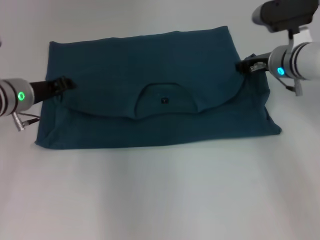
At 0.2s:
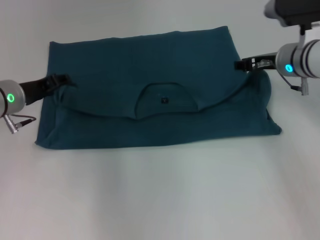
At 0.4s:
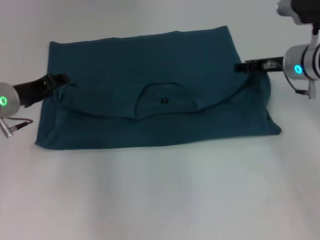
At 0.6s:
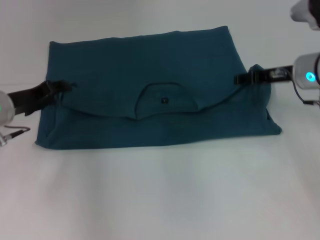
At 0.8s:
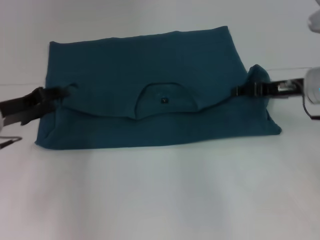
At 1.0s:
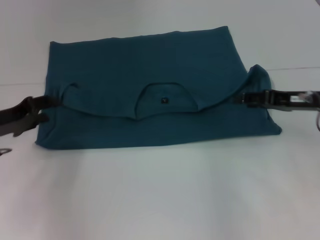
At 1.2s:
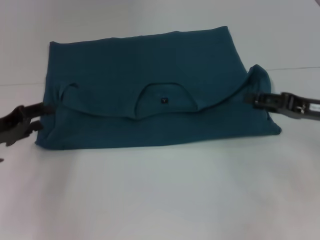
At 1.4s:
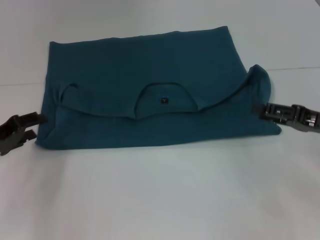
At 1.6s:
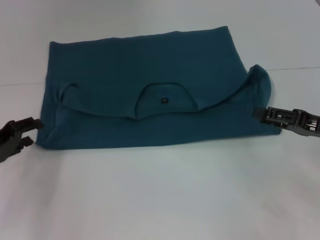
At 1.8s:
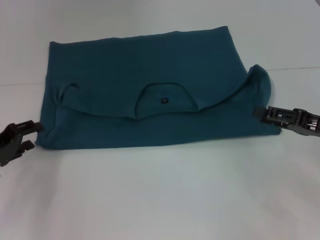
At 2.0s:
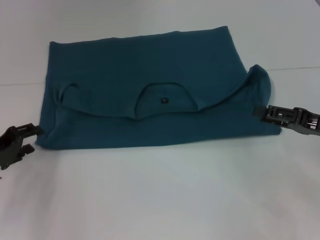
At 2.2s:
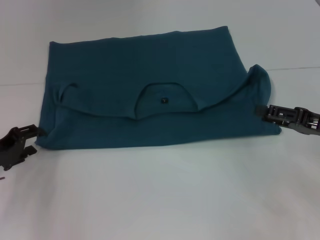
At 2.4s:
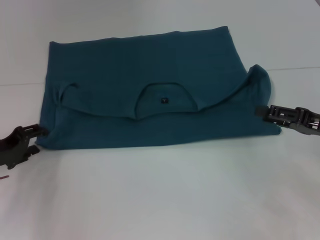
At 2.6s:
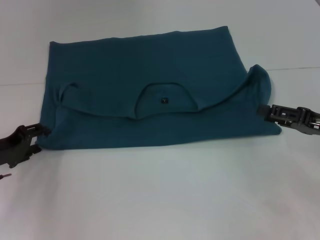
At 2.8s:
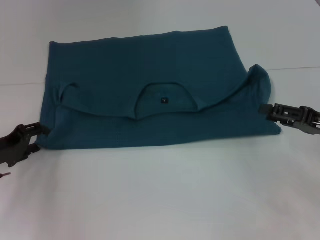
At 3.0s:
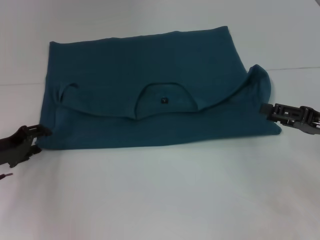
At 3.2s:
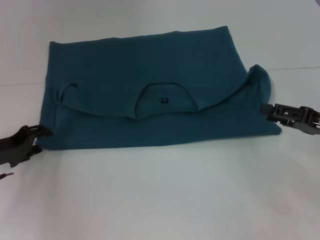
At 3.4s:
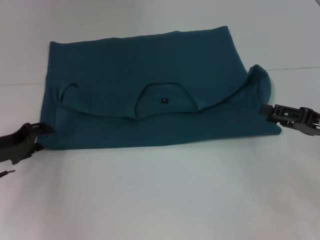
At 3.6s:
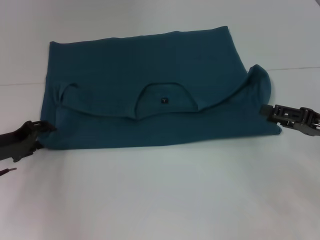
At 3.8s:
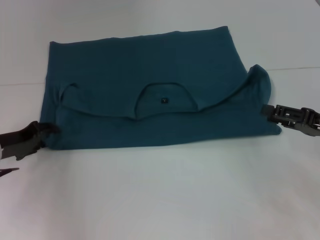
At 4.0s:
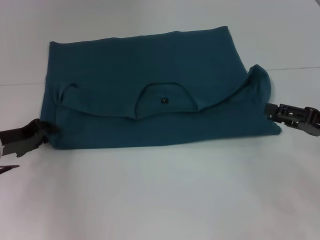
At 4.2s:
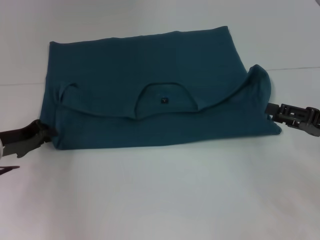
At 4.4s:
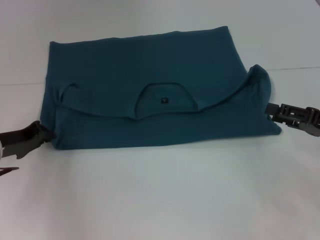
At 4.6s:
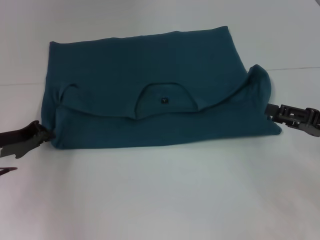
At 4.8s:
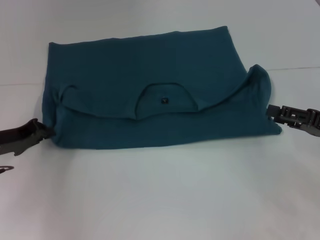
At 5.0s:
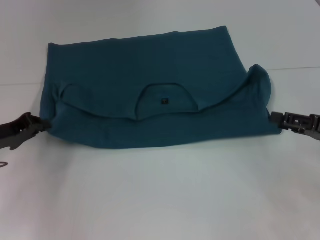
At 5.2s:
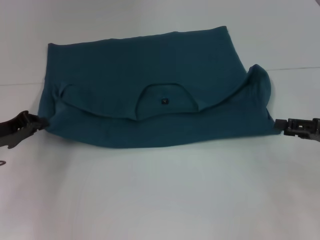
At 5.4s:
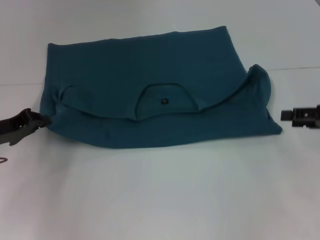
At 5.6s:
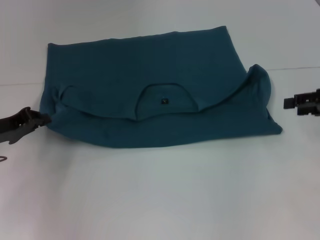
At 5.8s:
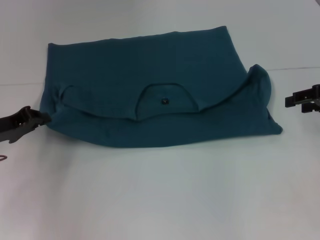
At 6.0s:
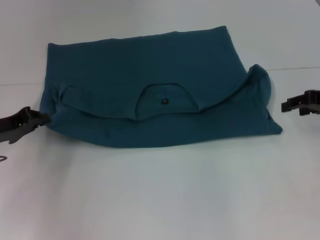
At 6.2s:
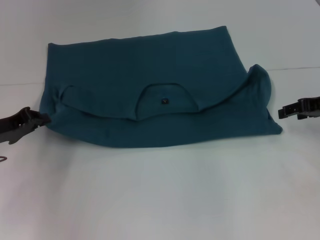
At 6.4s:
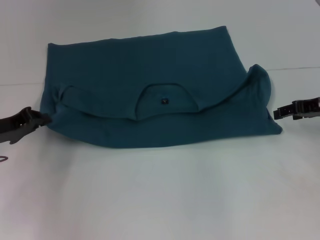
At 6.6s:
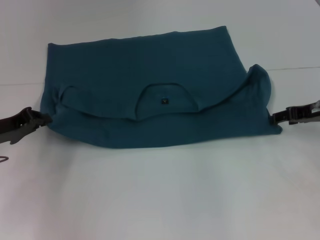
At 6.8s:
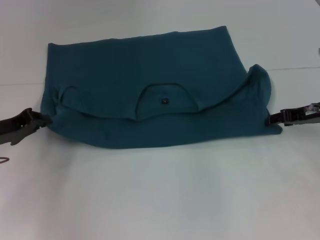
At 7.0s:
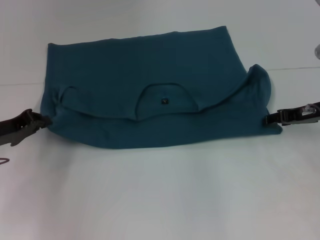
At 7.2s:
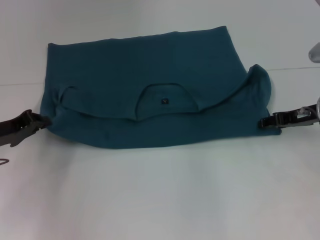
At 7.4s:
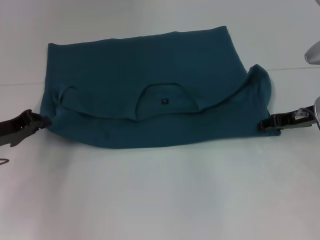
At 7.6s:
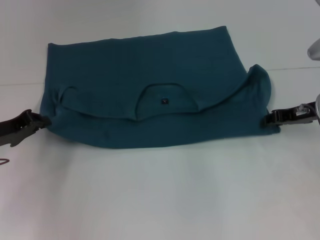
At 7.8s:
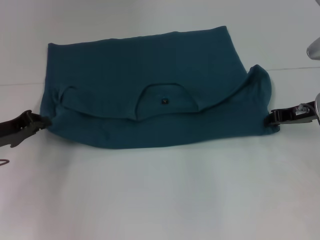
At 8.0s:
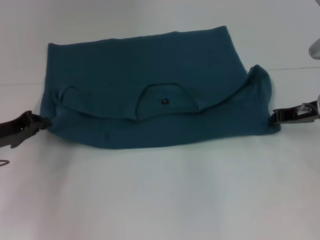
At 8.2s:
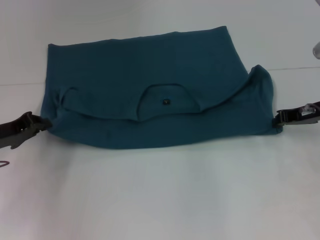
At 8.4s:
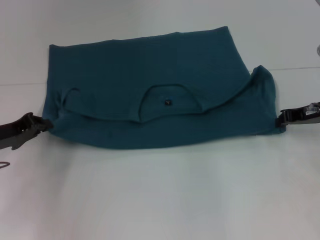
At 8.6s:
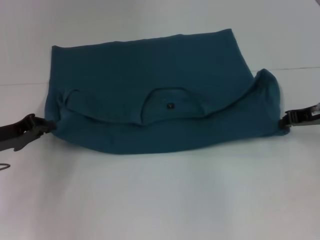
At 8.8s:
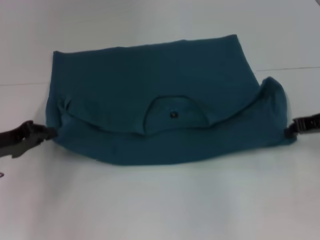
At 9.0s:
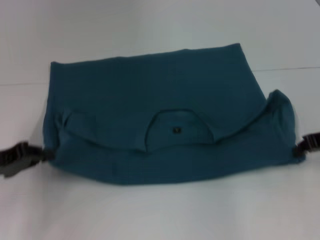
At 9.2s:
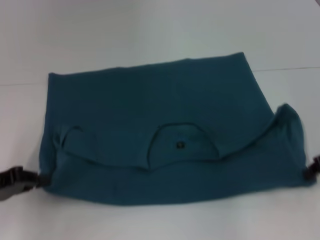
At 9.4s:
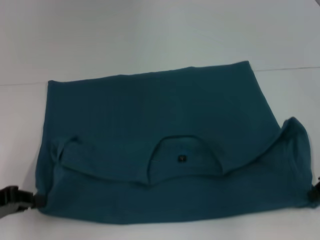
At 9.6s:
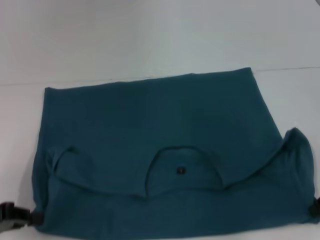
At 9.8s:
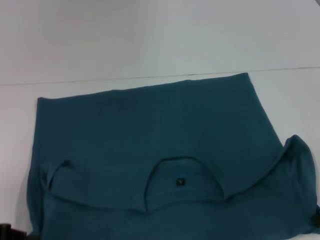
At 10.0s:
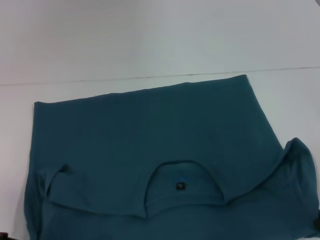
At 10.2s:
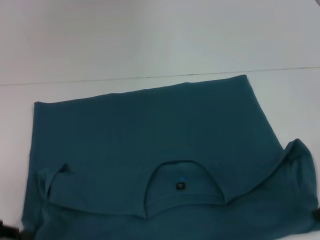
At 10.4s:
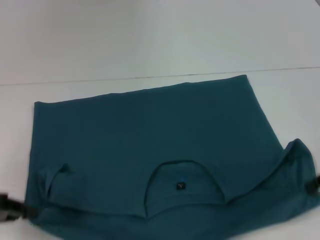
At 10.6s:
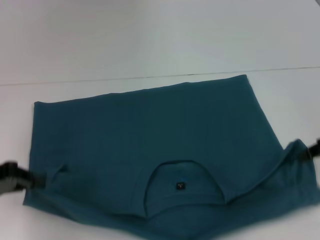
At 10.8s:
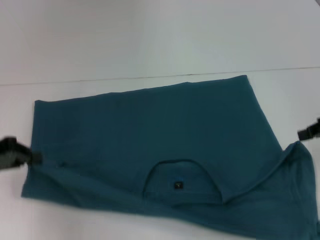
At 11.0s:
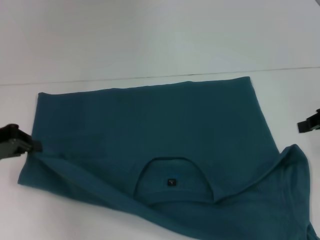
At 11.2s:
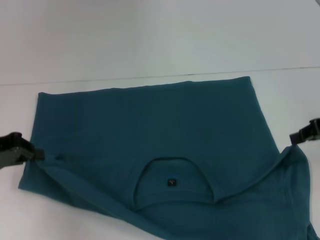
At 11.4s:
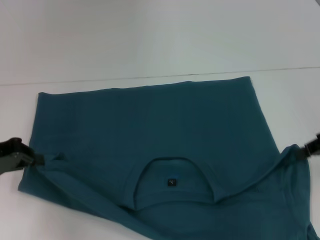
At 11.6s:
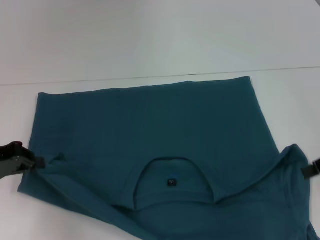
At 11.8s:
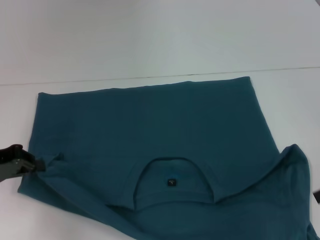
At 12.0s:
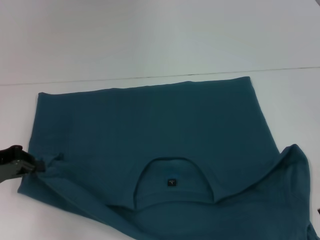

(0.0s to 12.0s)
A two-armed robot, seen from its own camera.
Step, 0.8s - 10.0s: Pull the clothes with your left hand.
Step, 0.8s - 10.0s: Pull the clothes with your right hand.
0.0s - 1.6s: The right gripper goes approximately 20 cm backward and to the right, and opens its fingers. The left gripper shifts roughly 15 cm backward and to the left, and opens up.
1.6s - 3.0s: The grippers make only small movements.
3.0s - 4.4s: The left gripper closes its fingers.
4.4s - 6.0s: The right gripper heads forward and upward, covering approximately 10 cm.
6.0s - 7.6s: The right gripper shifts approximately 5 cm downward and to the left.
7.6s - 9.0s: The right gripper shifts by roughly 5 cm, and closes up.
9.0s - 10.4s: The left gripper moves backward, roughly 5 cm.
10.4s - 12.0s: The left gripper travels forward by roughly 5 cm.

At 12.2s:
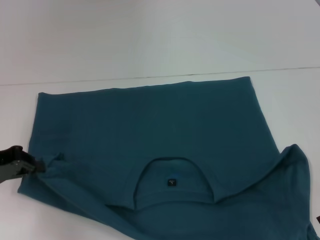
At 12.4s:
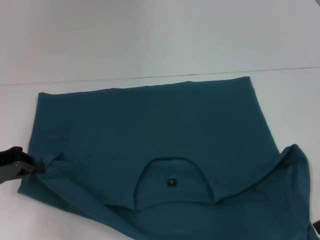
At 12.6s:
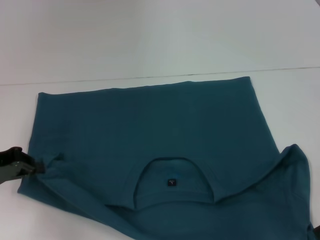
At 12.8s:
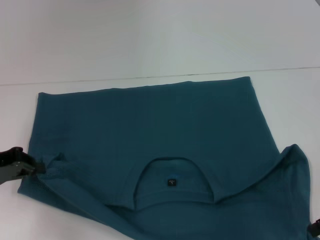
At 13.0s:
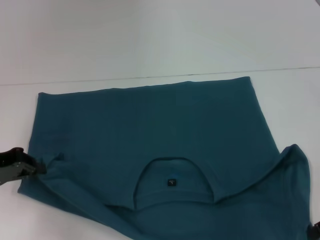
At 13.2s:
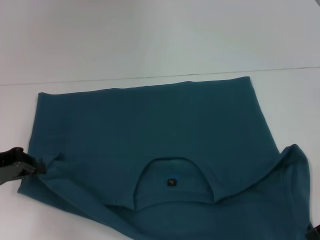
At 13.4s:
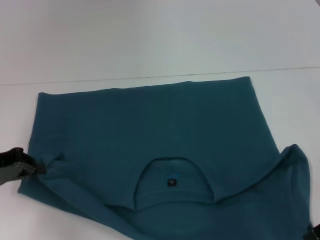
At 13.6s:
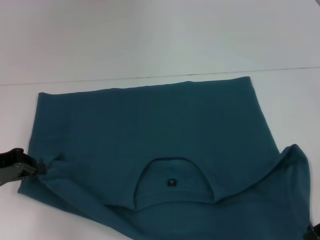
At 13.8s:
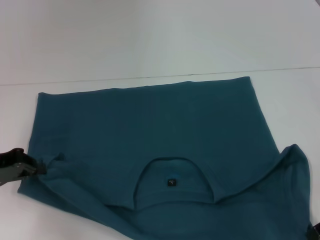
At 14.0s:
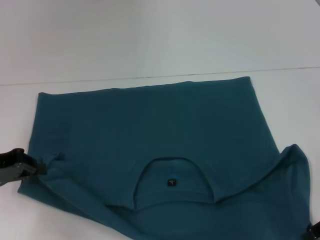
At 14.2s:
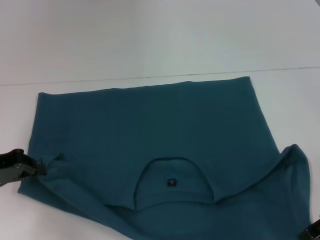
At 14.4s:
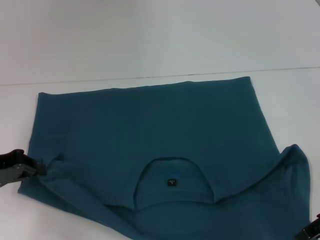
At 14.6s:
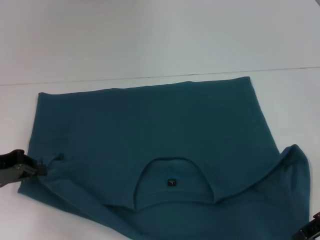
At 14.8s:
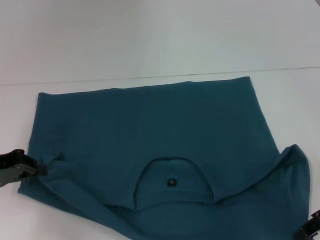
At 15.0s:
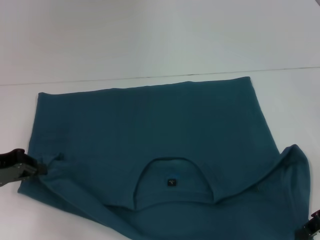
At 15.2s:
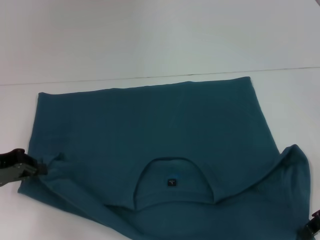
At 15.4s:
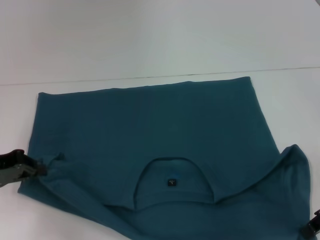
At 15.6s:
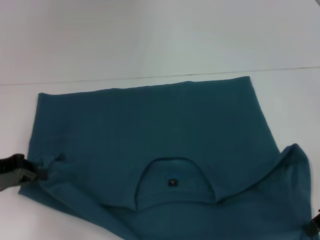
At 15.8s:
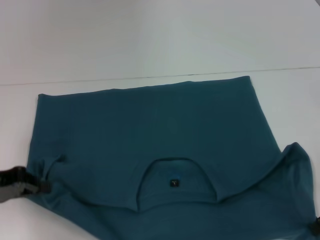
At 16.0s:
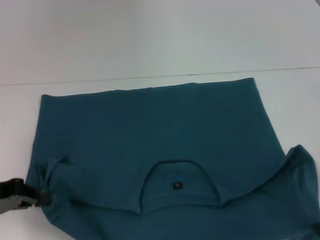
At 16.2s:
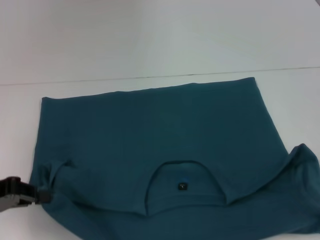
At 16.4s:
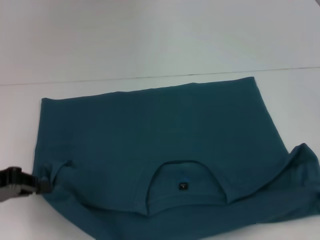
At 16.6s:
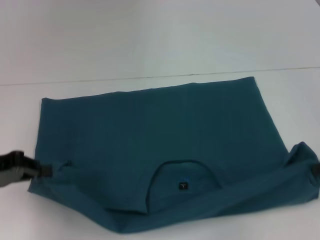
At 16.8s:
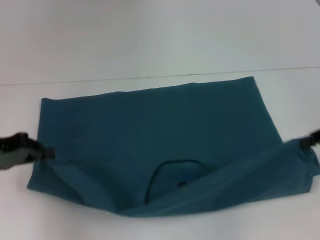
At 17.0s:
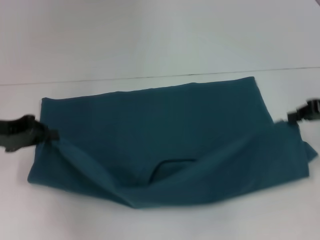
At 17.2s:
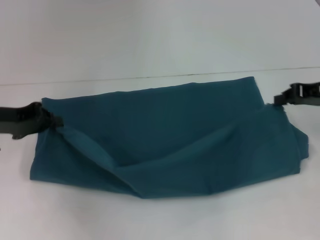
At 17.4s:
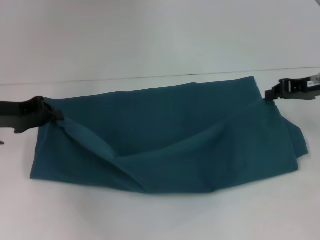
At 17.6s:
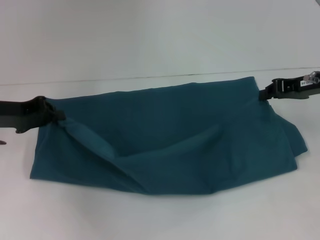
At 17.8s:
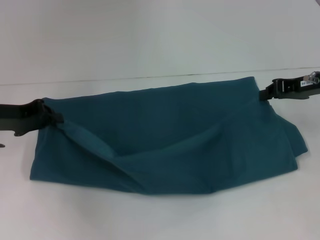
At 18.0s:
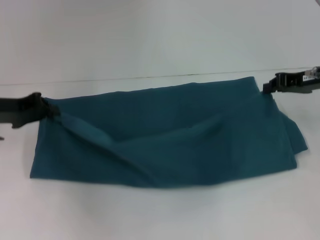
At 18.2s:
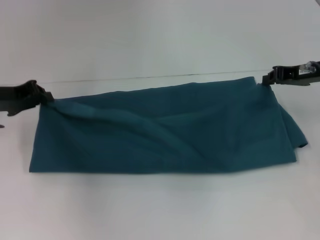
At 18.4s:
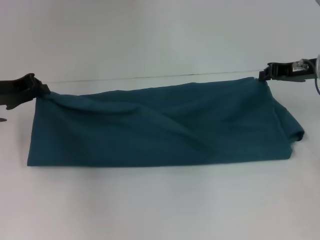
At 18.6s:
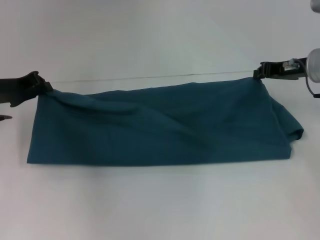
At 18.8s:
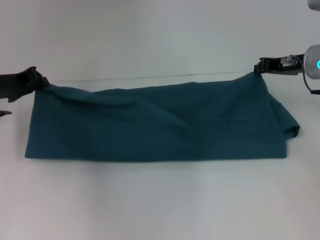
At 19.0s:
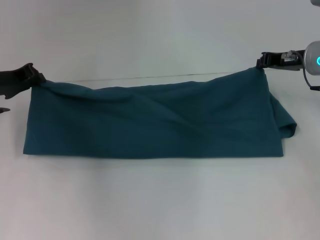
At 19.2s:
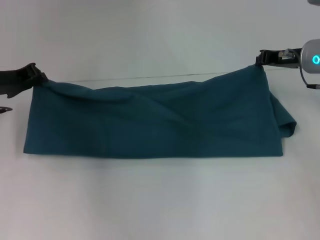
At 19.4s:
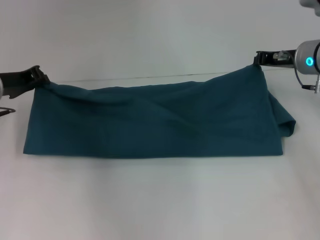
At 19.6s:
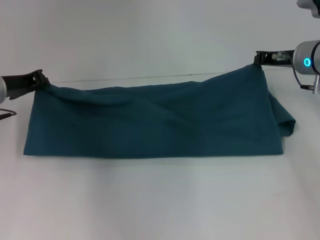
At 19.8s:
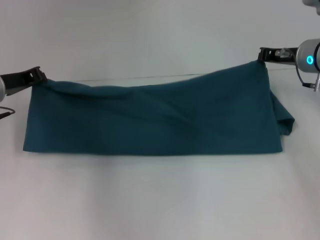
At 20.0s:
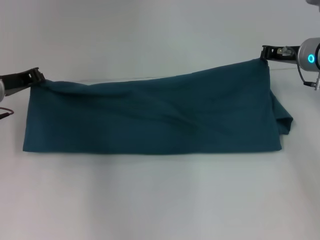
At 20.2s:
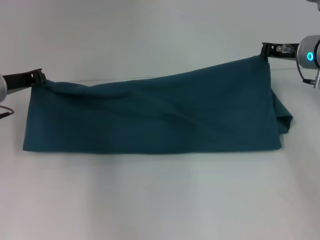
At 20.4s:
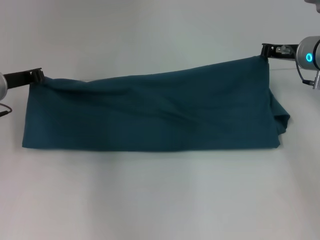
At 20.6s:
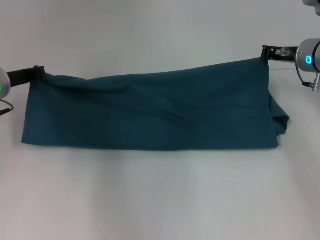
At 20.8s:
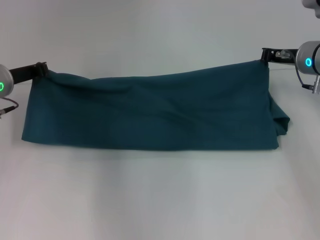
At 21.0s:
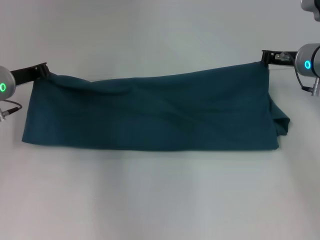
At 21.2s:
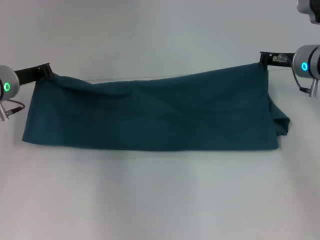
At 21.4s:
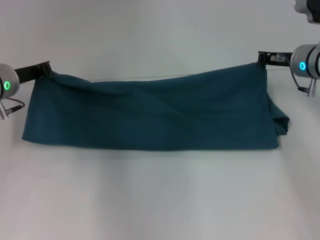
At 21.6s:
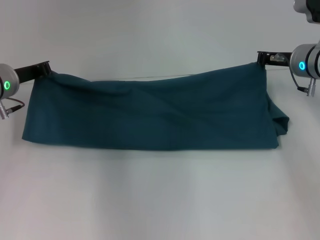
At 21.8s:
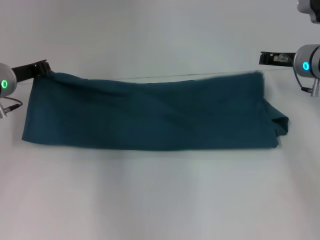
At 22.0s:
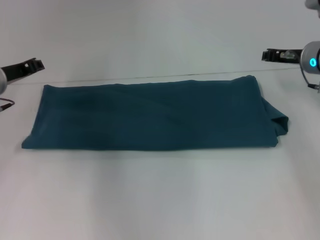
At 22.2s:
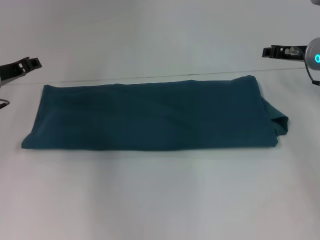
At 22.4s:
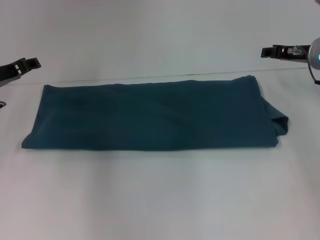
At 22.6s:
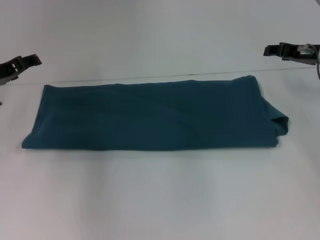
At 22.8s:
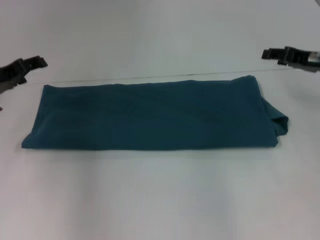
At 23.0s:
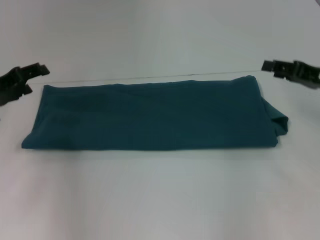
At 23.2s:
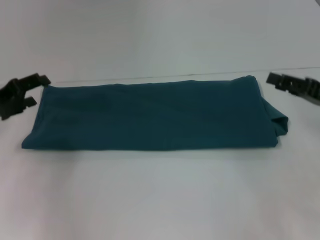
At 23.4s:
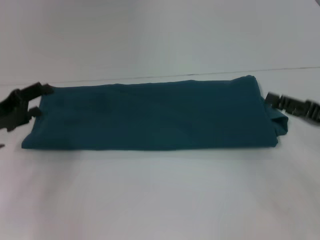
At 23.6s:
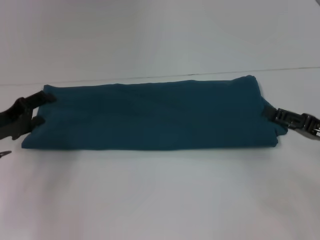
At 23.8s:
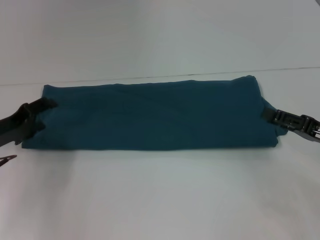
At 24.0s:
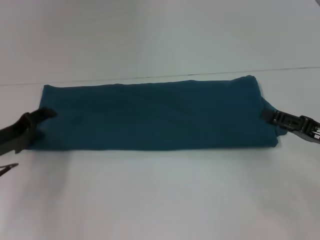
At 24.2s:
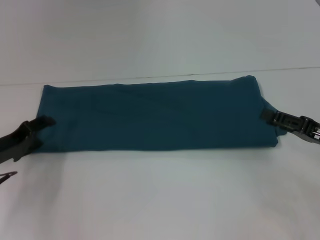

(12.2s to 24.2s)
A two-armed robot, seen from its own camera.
Step, 12.2s - 22.4s: Fold the clothes to the right.
15.2s - 16.6s: The right gripper moves to the right, roughly 5 cm.
16.6s - 18.2s: The left gripper is displaced forward by approximately 10 cm; the right gripper goes approximately 15 cm forward and to the left.
18.2s - 19.8s: The right gripper shifts by about 5 cm.
19.8s - 21.2s: The grippers stay close to where they were, moving slightly.
21.2s - 22.6s: The left gripper opens. The right gripper opens its fingers.
22.6s - 24.2s: The left gripper heads downward and backward, covering roughly 10 cm. The right gripper shifts about 15 cm backward and downward.
